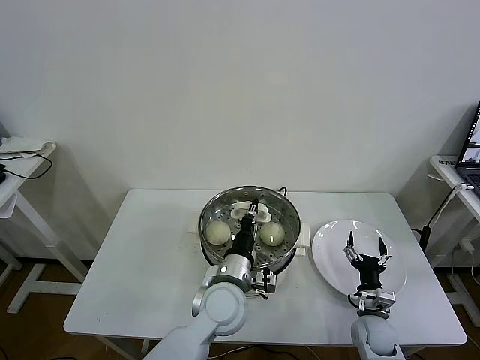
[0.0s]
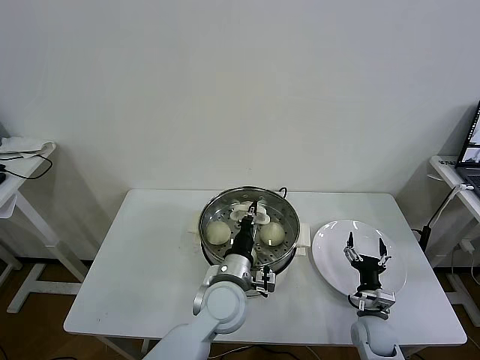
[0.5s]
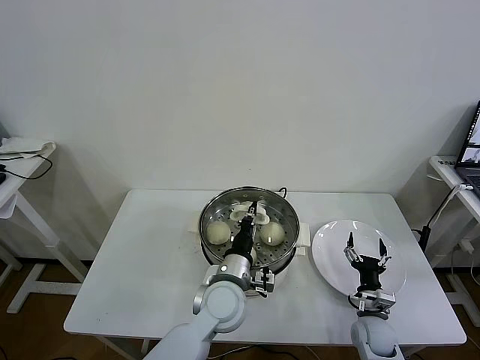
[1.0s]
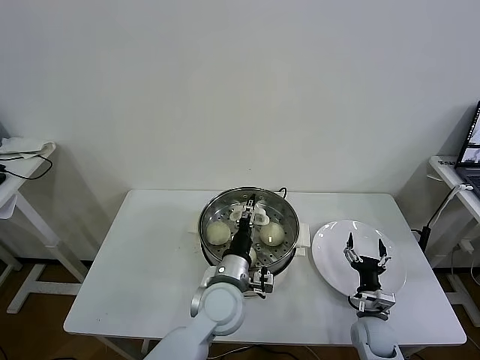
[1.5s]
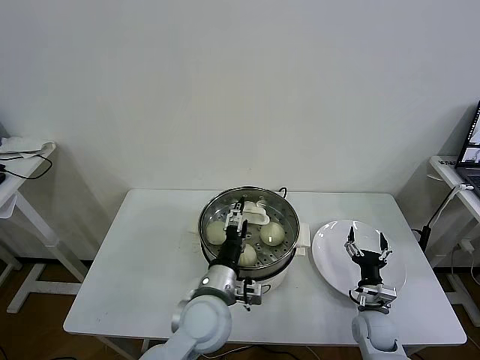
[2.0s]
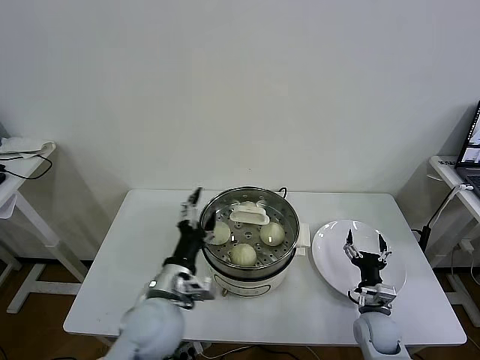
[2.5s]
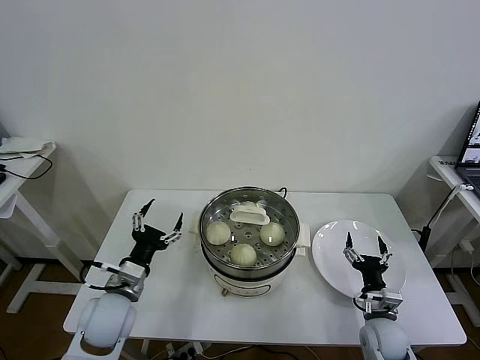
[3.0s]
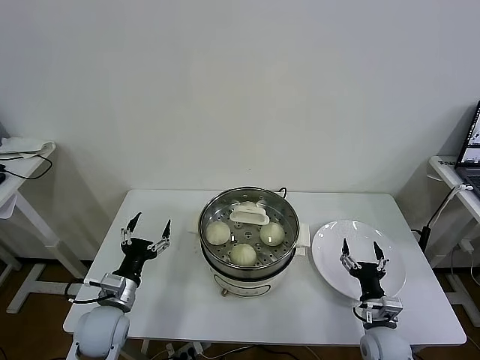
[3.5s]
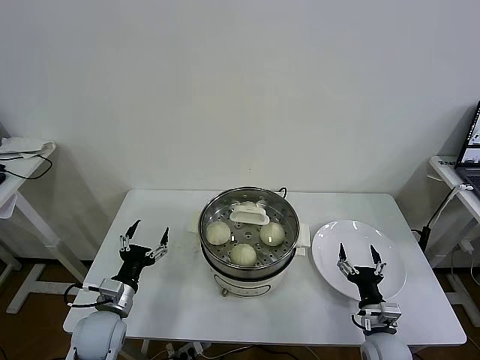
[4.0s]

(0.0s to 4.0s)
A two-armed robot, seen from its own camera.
Task of the whole recording: take steamed baozi put them in steamer then cover it.
Step, 0.0s - 4.0s: Place the pot lid on the steamer with left gripper.
0.0s - 2.0s: The left gripper opens its fingers.
2.0s - 4.0s: The left gripper is displaced to the left by about 25 cm. The right gripper heads backward, covering about 5 cm.

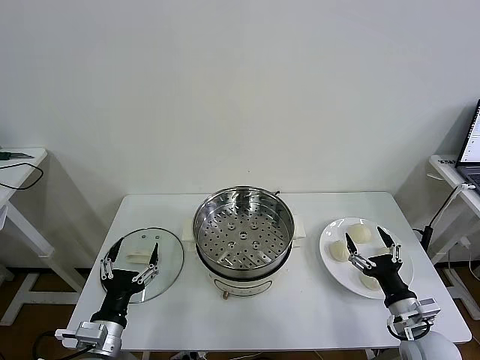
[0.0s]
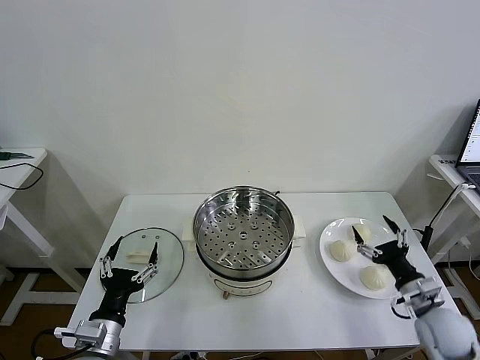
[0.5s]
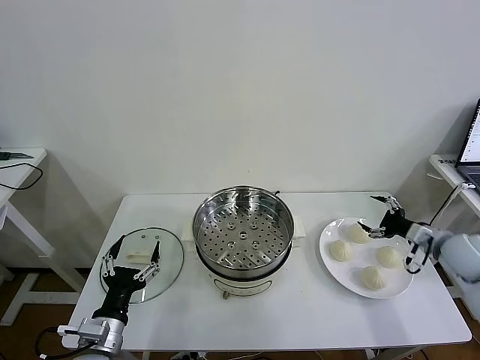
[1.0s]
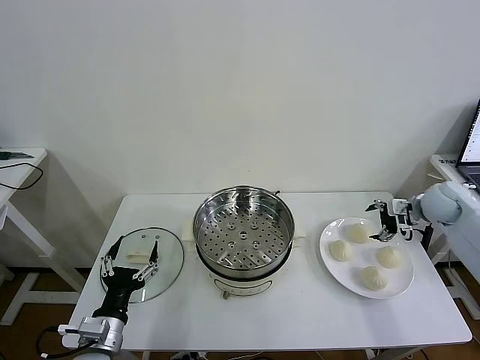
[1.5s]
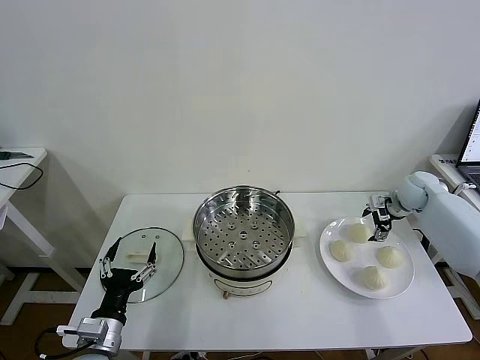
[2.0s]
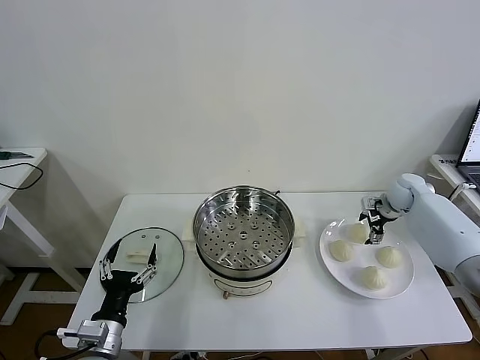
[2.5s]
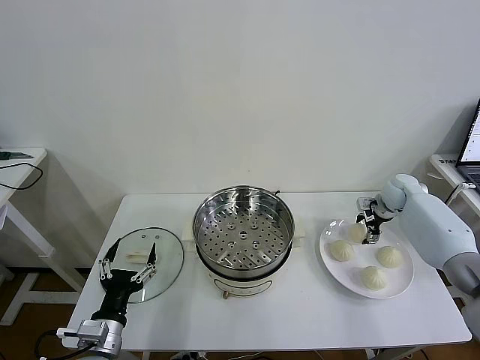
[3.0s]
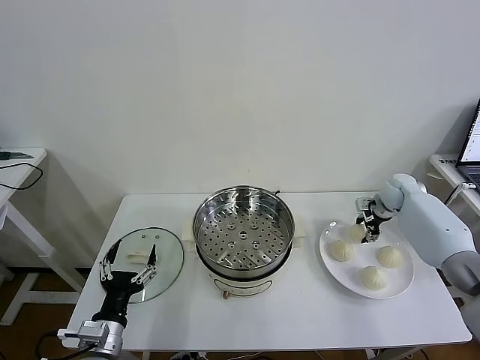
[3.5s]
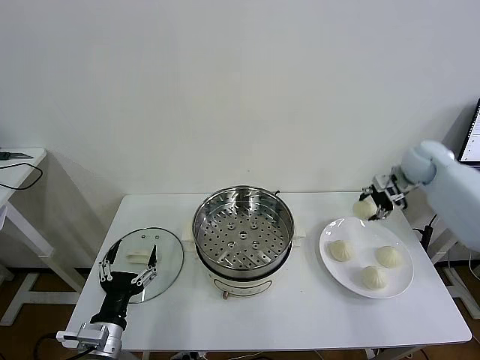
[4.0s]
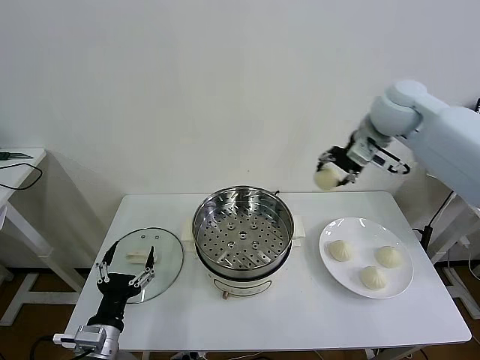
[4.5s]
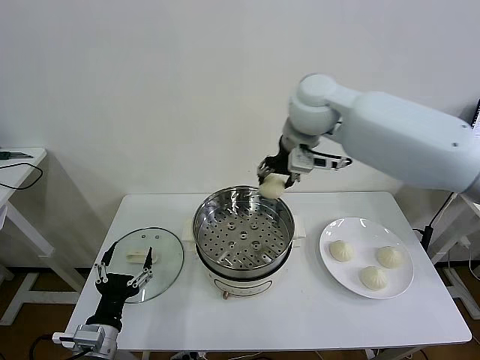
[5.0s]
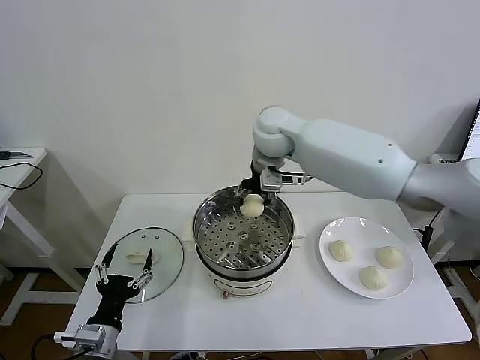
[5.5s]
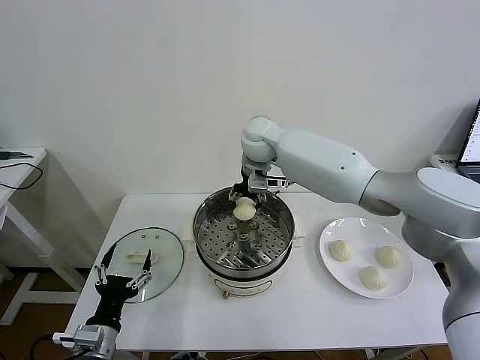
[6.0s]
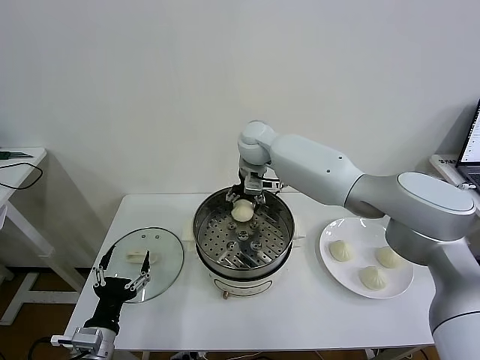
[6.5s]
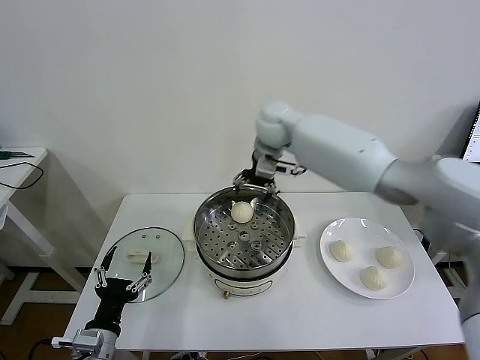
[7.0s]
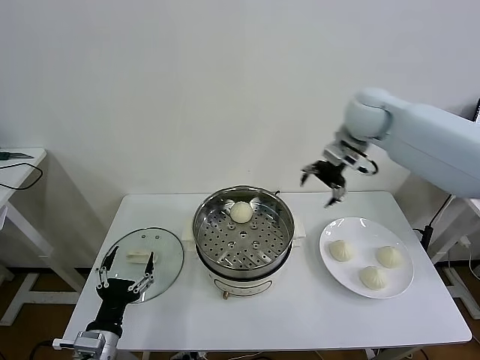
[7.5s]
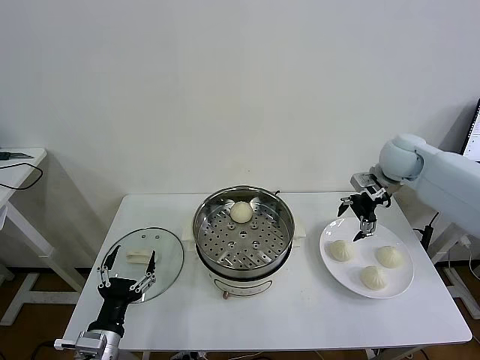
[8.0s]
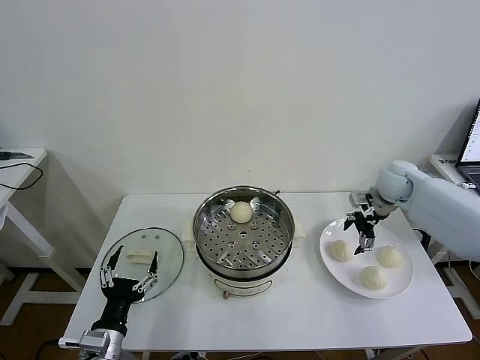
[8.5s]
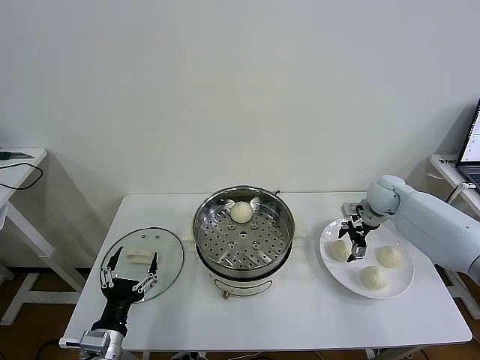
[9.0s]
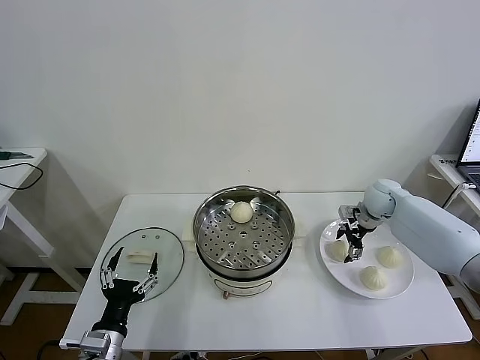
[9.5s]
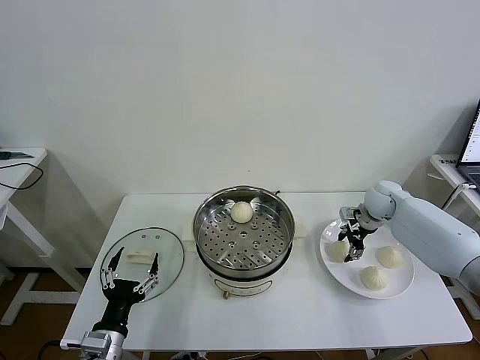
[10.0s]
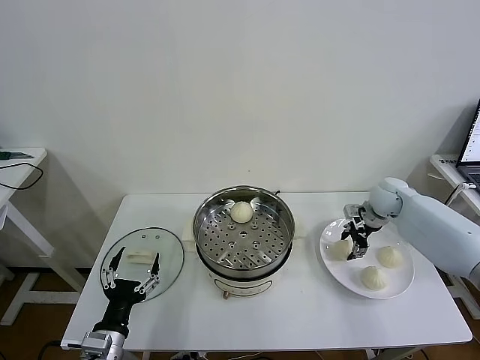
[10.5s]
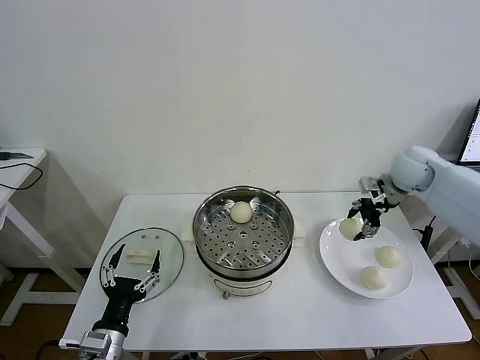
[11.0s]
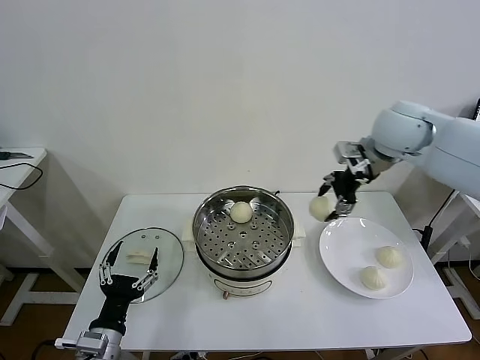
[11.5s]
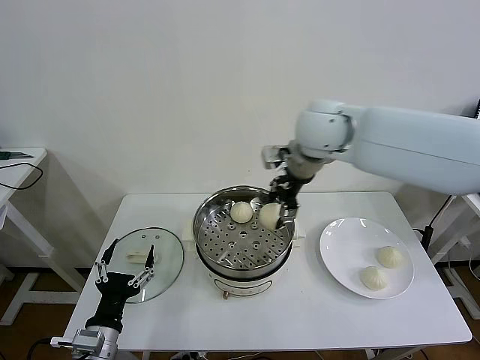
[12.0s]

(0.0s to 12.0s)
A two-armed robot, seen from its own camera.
Task of the whole recording: take steamed baozi put them in steamer then cover it.
Step, 0.0s - 3.0s: Grasp the baozi in the plate with right gripper.
Step, 3.5s - 6.5s: Place the baozi on the steamer with right gripper.
Step, 7.0s - 10.0s: Grasp the baozi in the plate with right gripper.
2.0s - 4.0s: The right gripper travels upward by about 10 cm, and closes.
4.0s - 6.0s: The right gripper goes some 40 cm to the left.
6.0s - 8.0s: The right gripper is displaced to the right by roughly 30 cm, and opens its fingers.
8.0s - 10.0s: The right gripper goes roughly 15 cm downward, and closes.
10.0s - 12.0s: The right gripper goes roughly 35 cm upward and to the left.

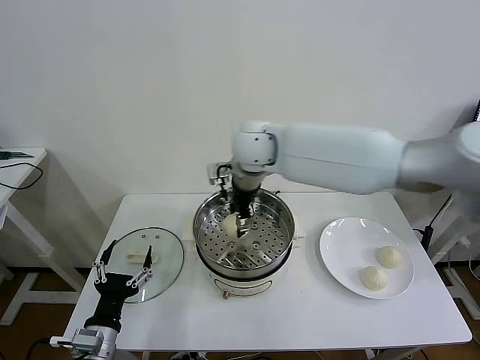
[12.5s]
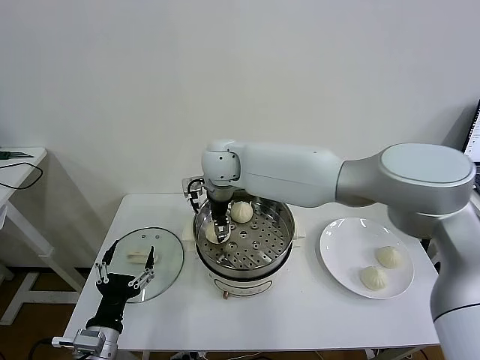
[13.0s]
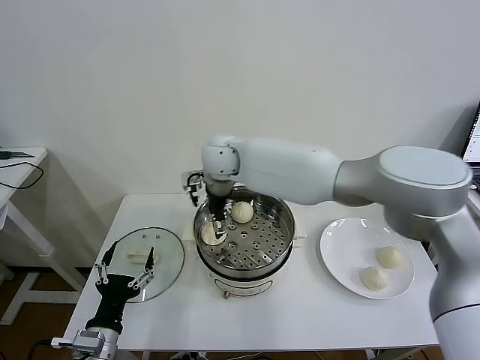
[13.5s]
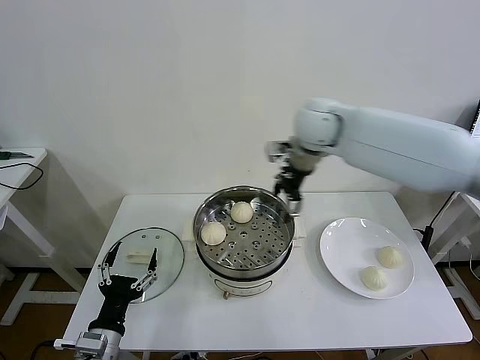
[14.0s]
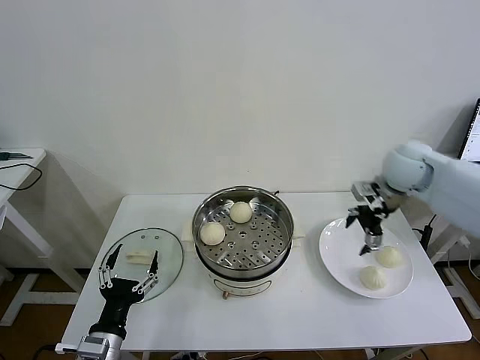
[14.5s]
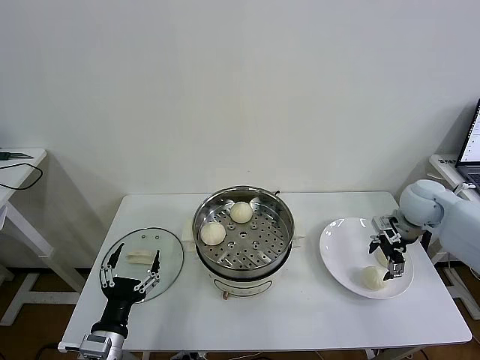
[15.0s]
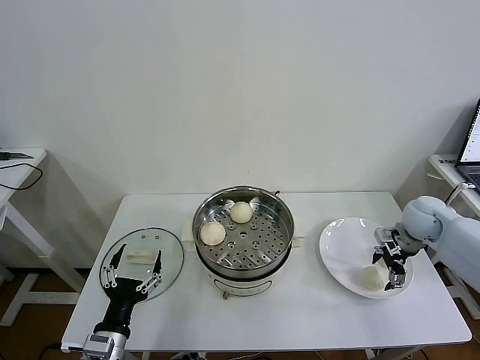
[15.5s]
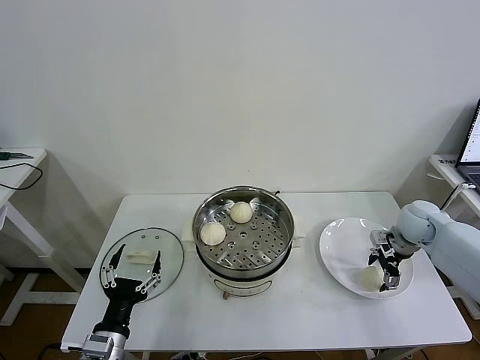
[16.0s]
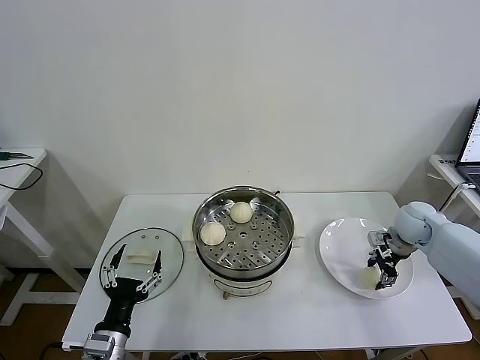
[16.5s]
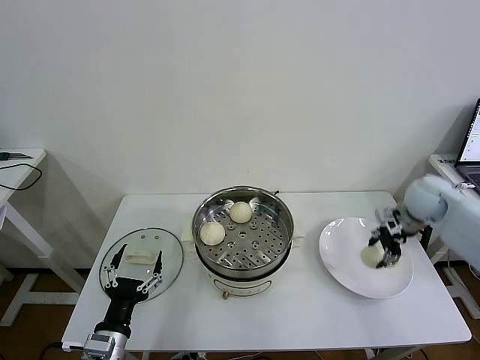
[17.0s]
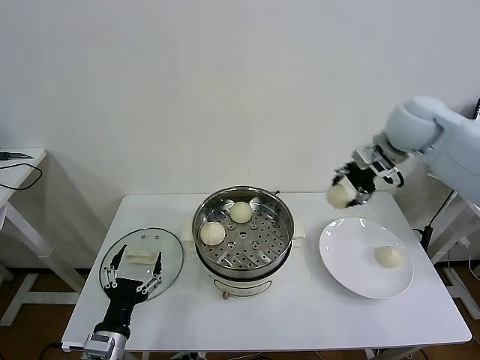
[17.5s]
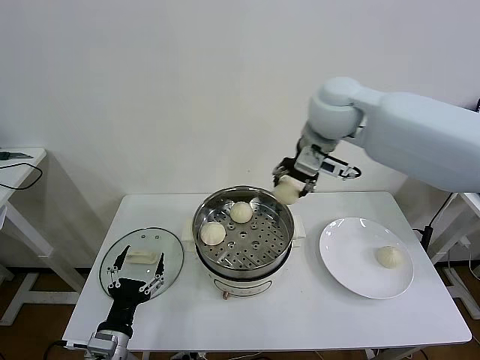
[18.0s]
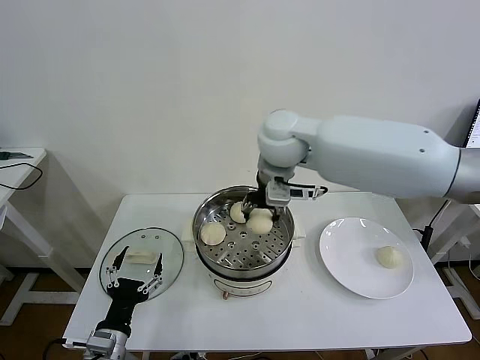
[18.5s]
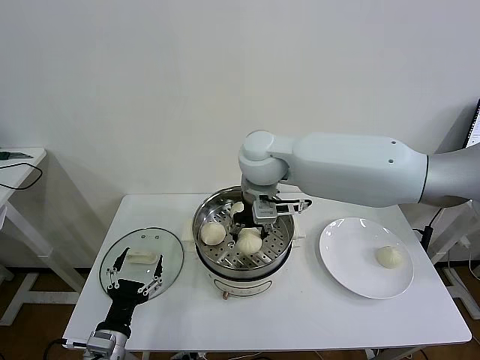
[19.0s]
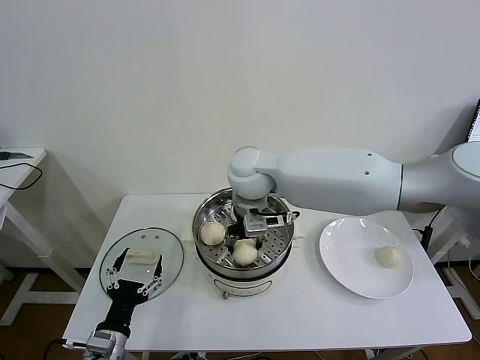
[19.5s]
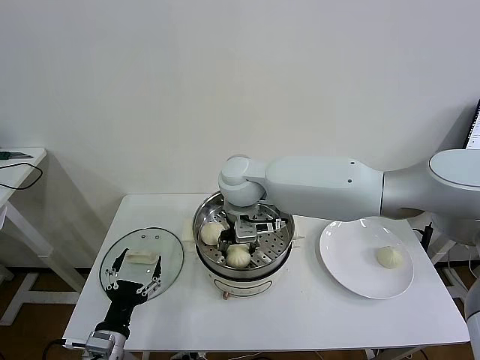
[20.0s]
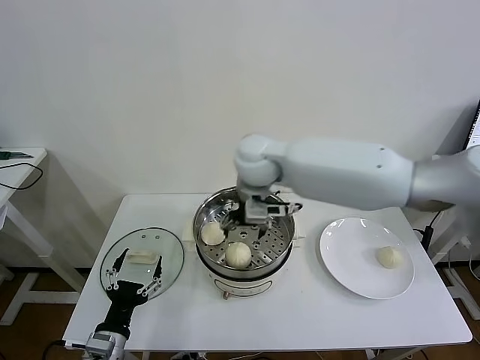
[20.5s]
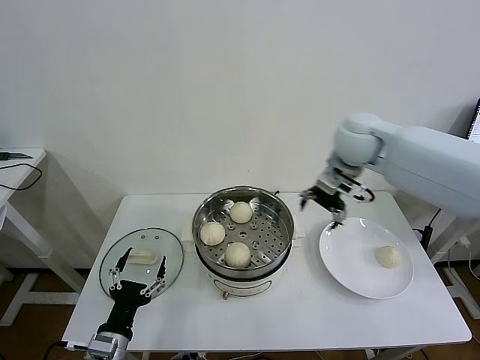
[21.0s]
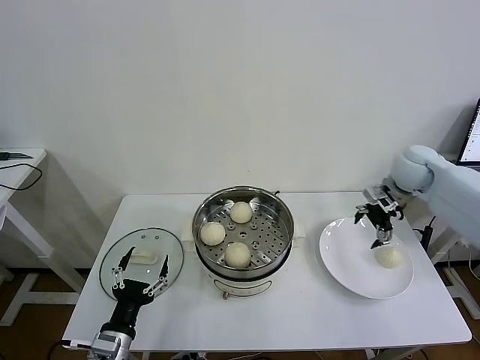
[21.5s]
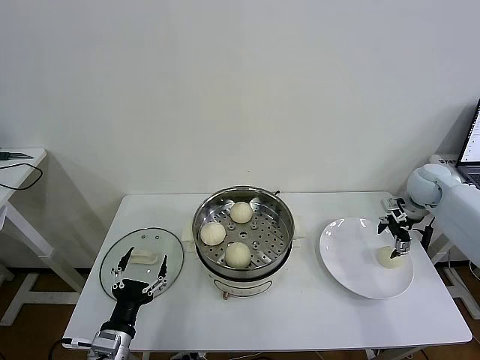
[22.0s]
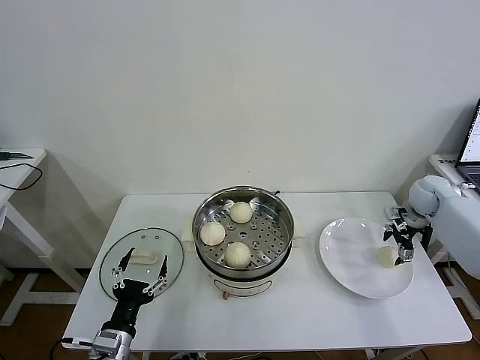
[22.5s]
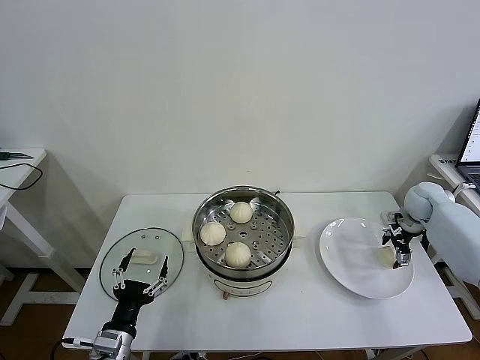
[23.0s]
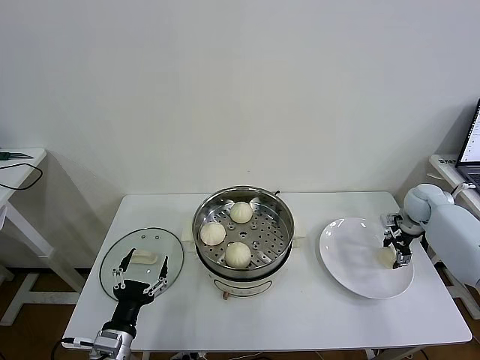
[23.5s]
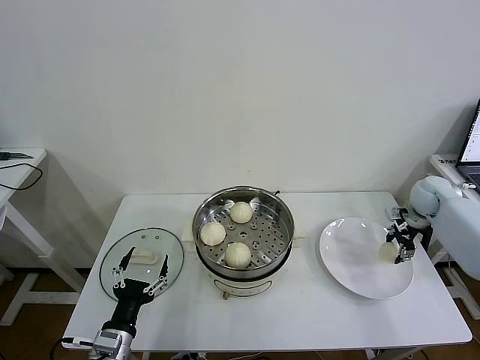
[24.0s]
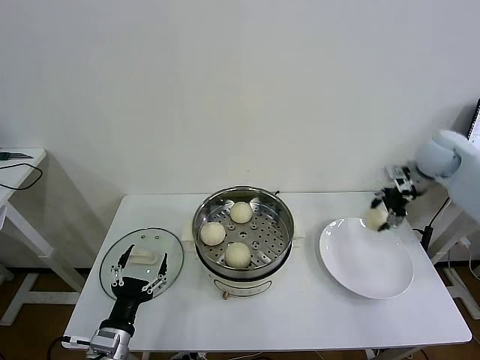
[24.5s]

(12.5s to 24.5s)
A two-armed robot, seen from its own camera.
Task of the whole recording: take steamed baozi put them in steamer then cover it.
Step, 13.5s - 16.5s: Grasp the baozi in the plate with right gripper.
Step, 17.0s - 20.0s: Place the baozi on the steamer with right gripper.
Step, 20.5s - 23.5s: Grasp the baozi in the plate with right gripper.
12.5s - 14.5s: The right gripper shifts about 30 cm to the right, and opens its fingers.
14.5s - 16.5s: The right gripper moves downward and to the right, approximately 20 cm, and closes.
16.5s - 18.5s: The right gripper heads to the left and upward, covering some 40 cm.
18.5s - 20.5s: The right gripper opens its fingers.
20.5s - 22.5s: The right gripper travels to the right by approximately 50 cm.
22.5s - 24.5s: The right gripper travels upward by some 15 cm, and closes up.
